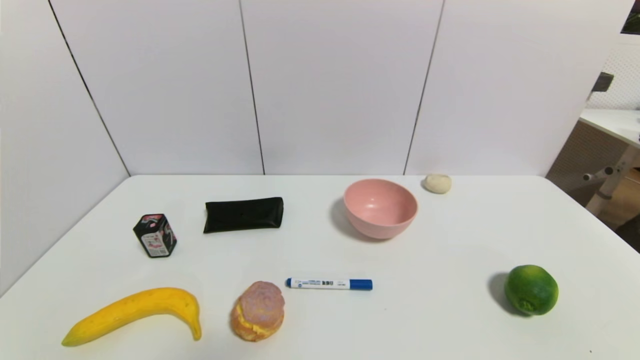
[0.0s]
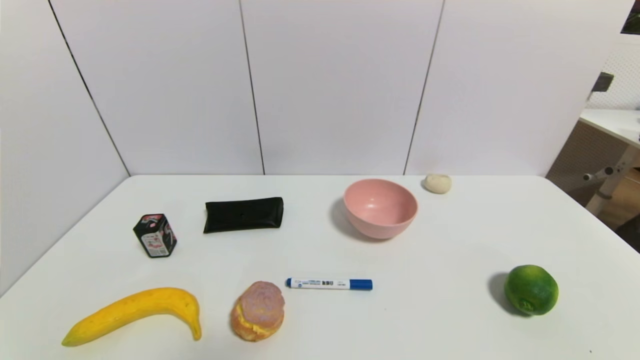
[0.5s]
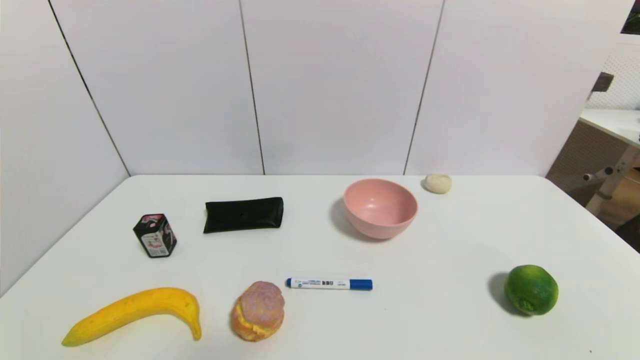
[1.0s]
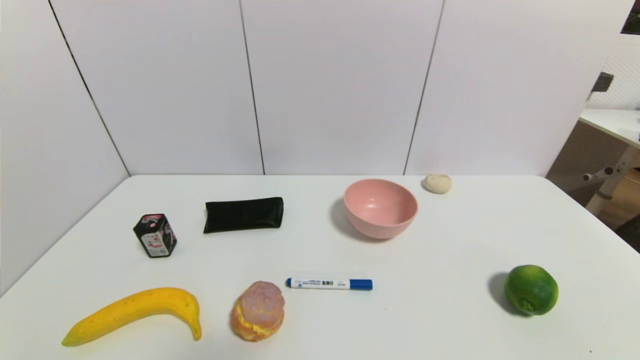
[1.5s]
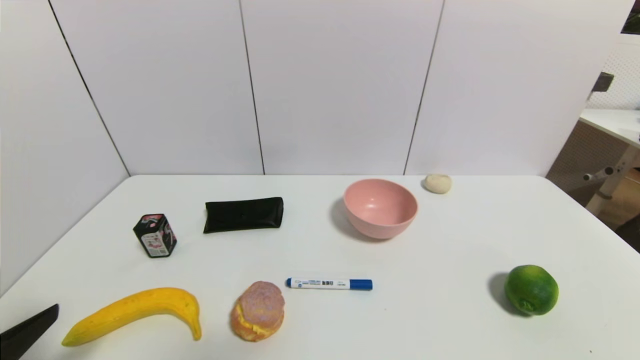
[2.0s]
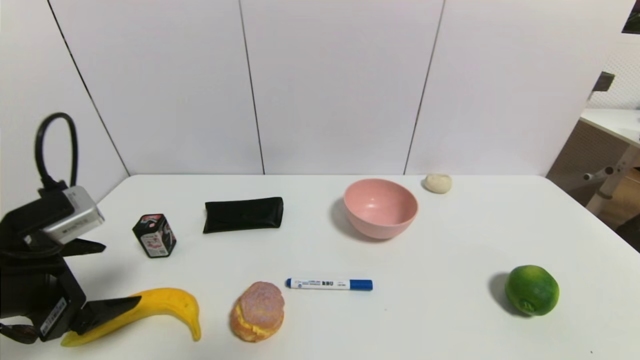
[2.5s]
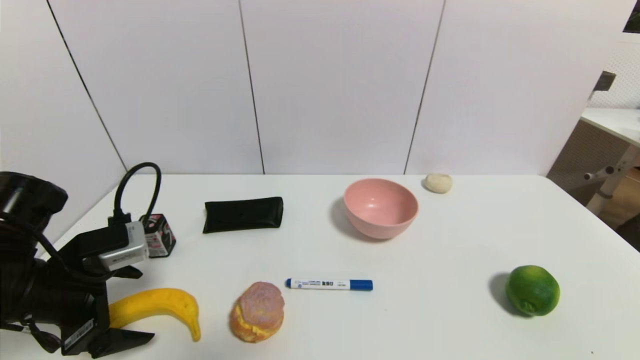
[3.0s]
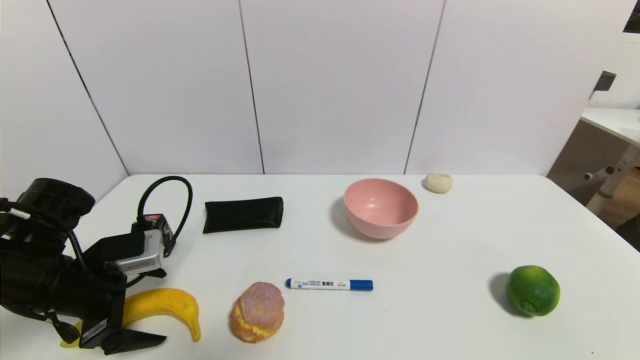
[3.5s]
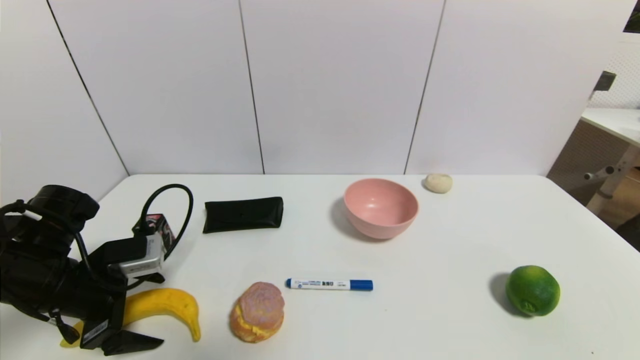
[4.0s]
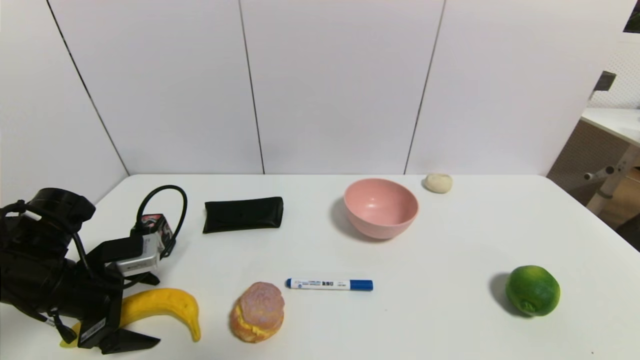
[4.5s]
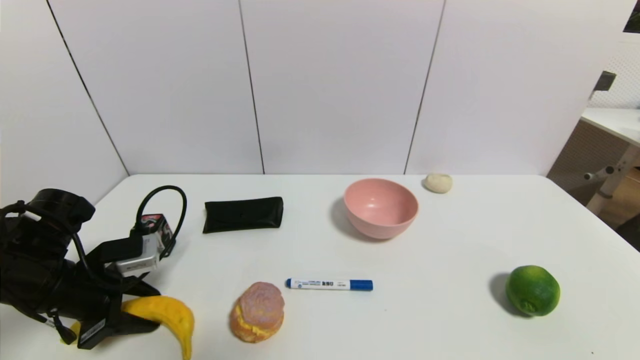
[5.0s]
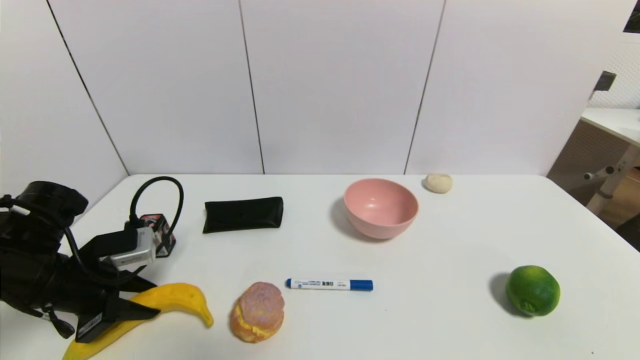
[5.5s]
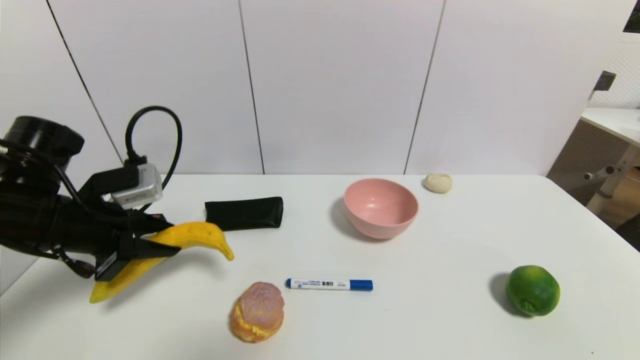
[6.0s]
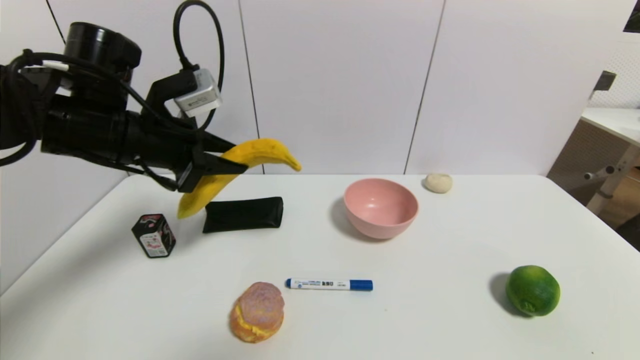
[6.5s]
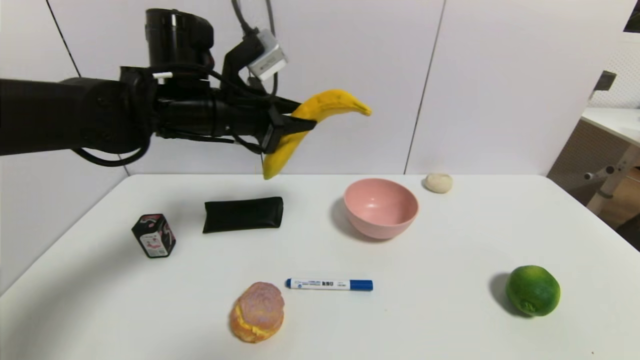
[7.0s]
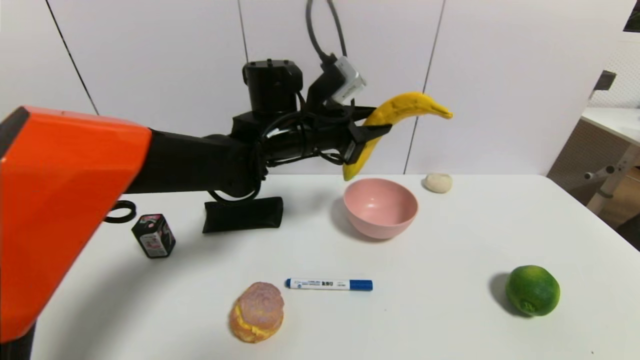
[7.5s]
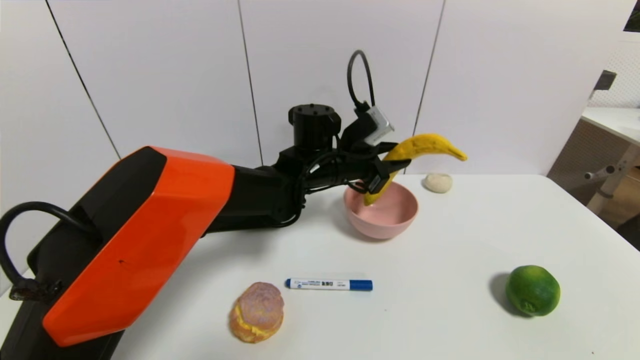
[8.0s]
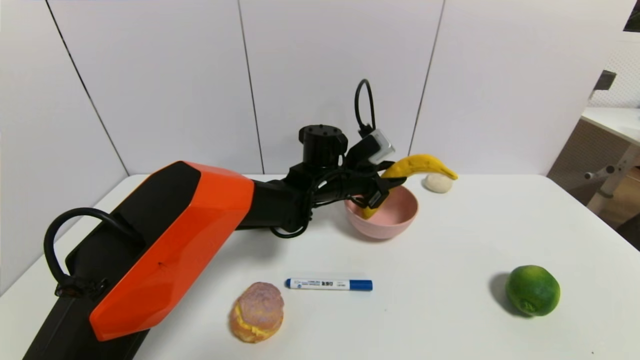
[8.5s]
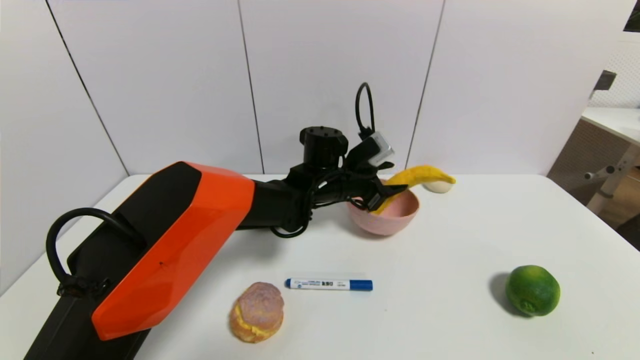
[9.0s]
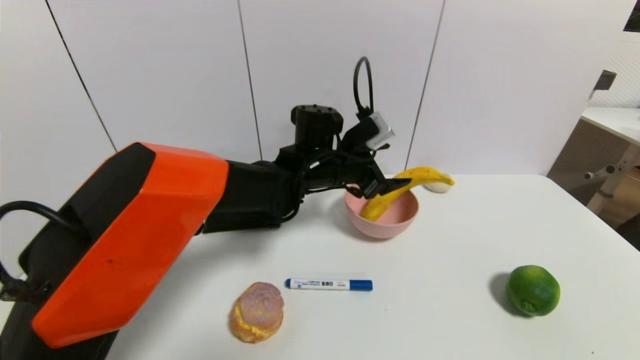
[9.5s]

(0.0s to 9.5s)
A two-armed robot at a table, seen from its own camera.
Task of the whole recording: use a gripper to pick the target object and place on the pink bowl.
Step, 0.0s - 5.0s: Grasp the banana with the left gripper.
Step, 5.5s - 9.0s: Place the banana on the pink bowl with the left gripper.
0.0s - 2.0s: The left gripper moves upward and forward, approximately 15 cm.
2.0s - 4.0s: The left gripper shifts roughly 20 cm forward and downward.
4.0s - 5.5s: The left gripper closes its fingers.
5.5s - 7.5s: The left gripper moves to the right and forward, some 30 cm.
7.5s - 9.5s: The left gripper shifts about 5 cm downward, and opens.

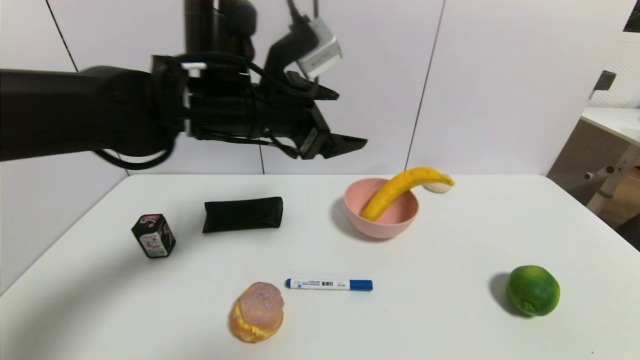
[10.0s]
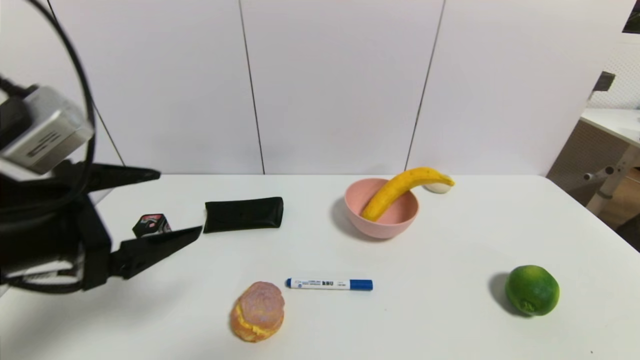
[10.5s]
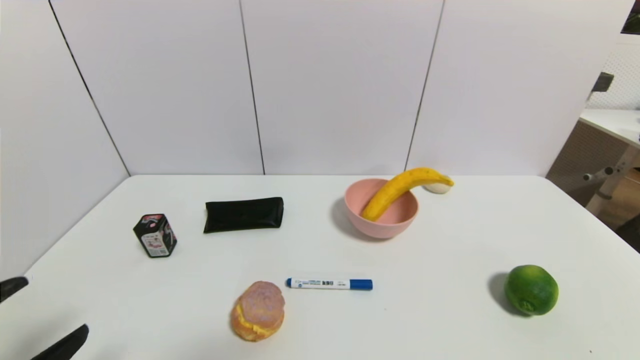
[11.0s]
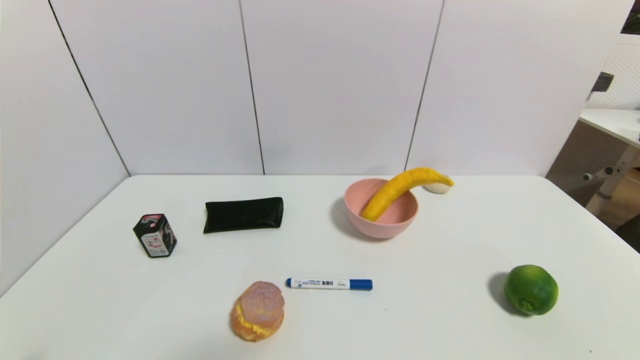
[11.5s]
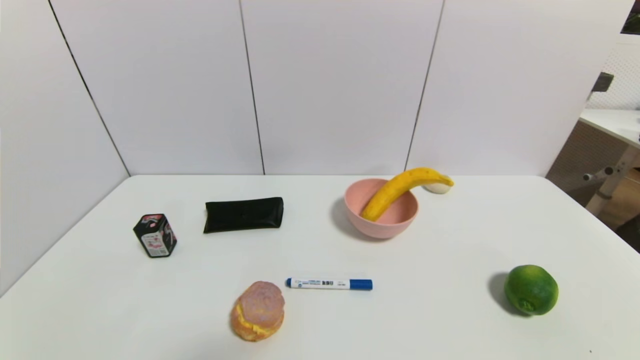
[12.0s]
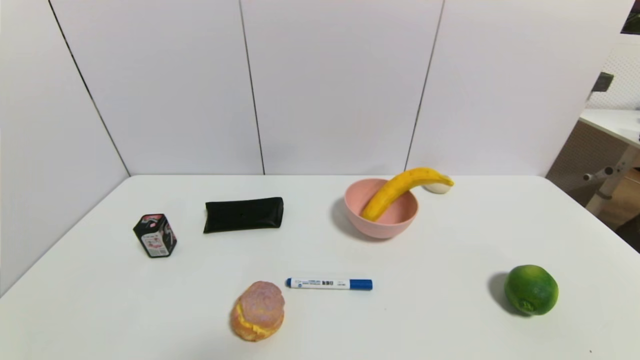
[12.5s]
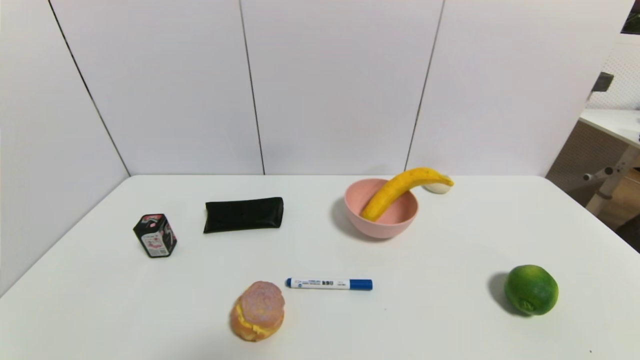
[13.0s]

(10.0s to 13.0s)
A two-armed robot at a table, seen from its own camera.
Task of the whole recording: use a gripper to pick the target object and place on the pink bowl.
10.0s - 11.5s: The left gripper travels backward, to the left and downward by roughly 40 cm.
